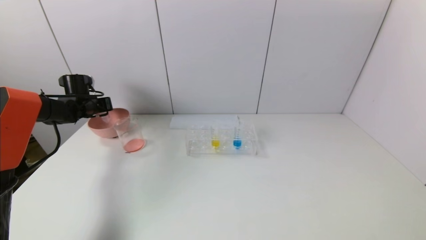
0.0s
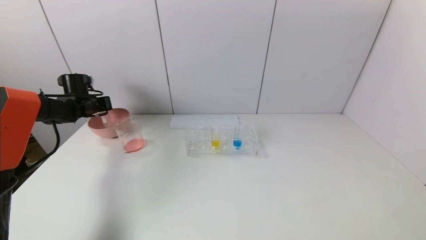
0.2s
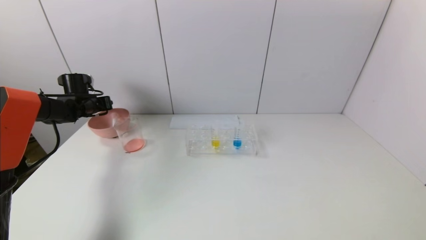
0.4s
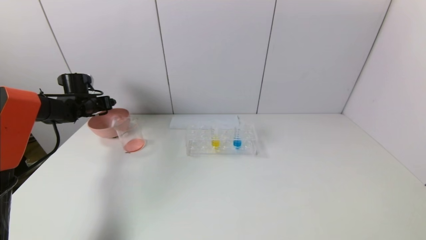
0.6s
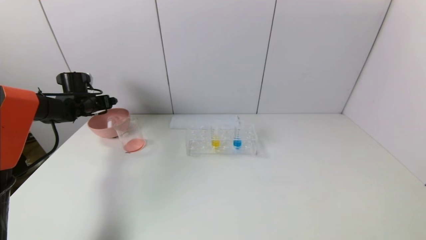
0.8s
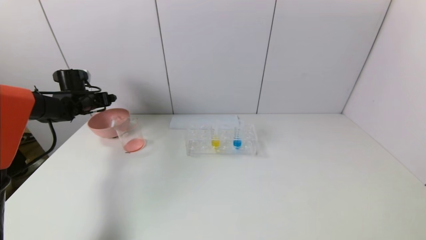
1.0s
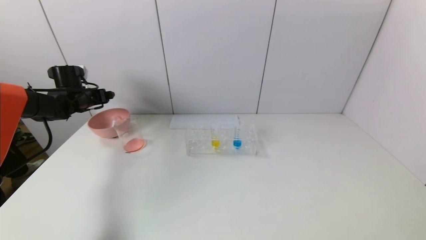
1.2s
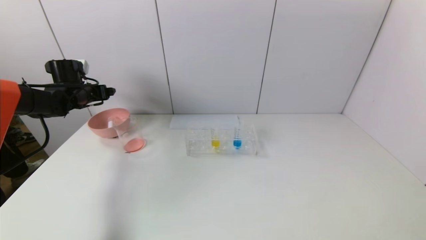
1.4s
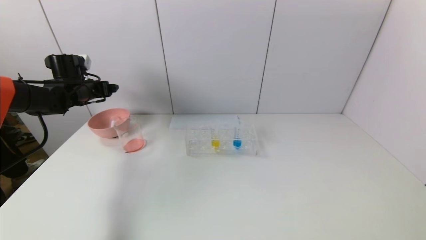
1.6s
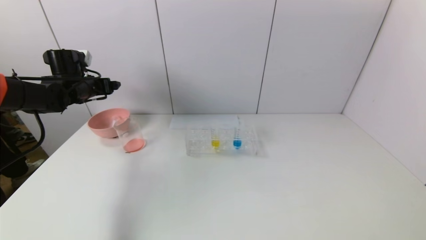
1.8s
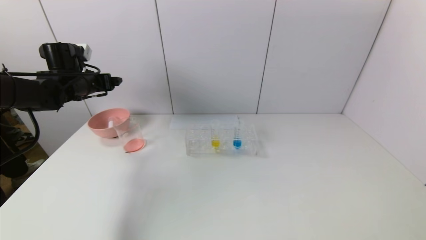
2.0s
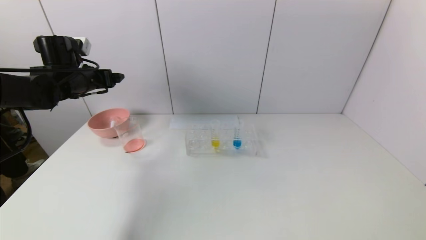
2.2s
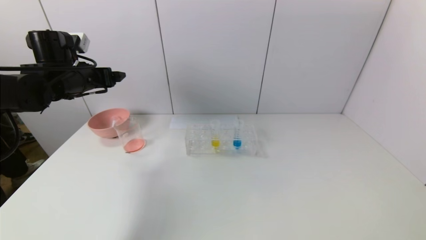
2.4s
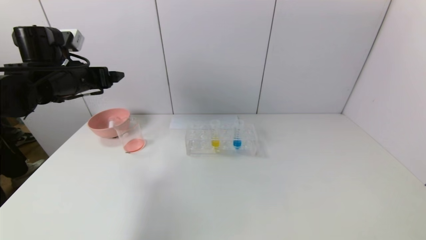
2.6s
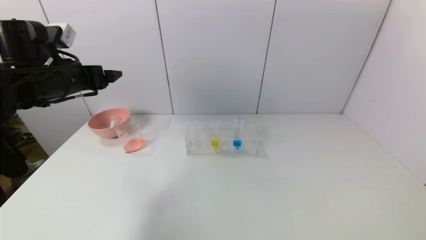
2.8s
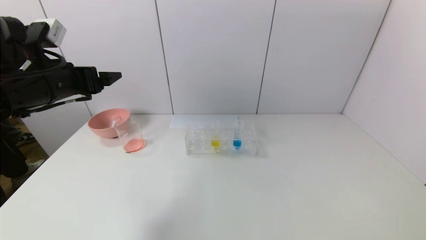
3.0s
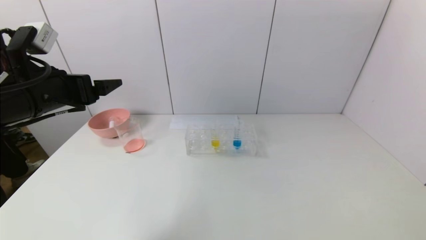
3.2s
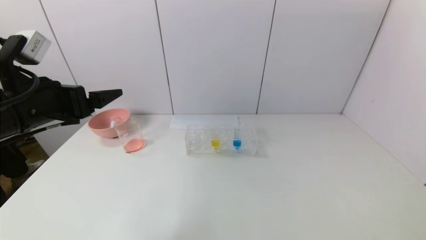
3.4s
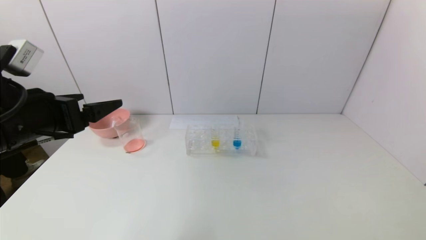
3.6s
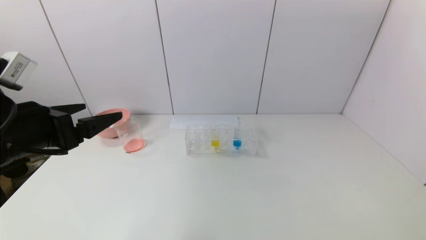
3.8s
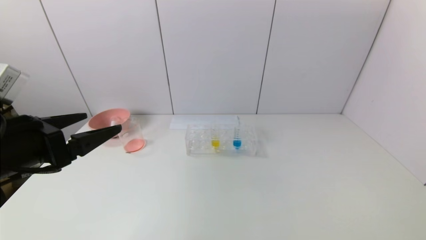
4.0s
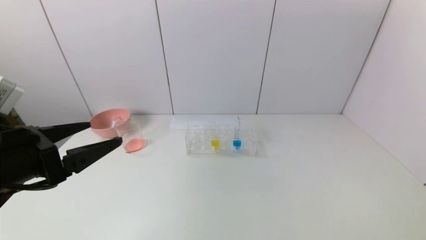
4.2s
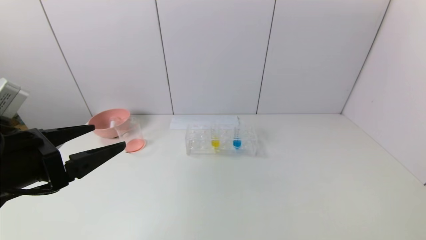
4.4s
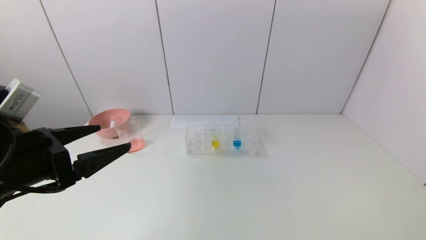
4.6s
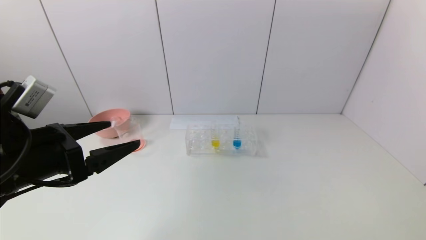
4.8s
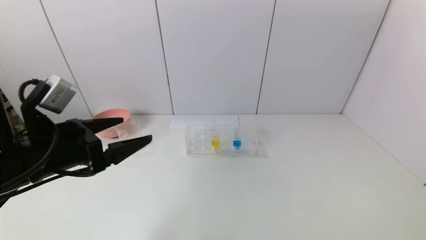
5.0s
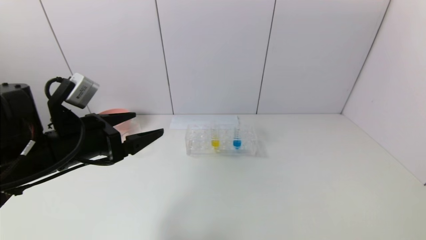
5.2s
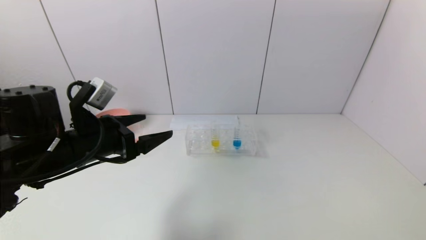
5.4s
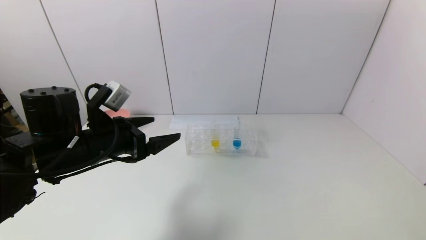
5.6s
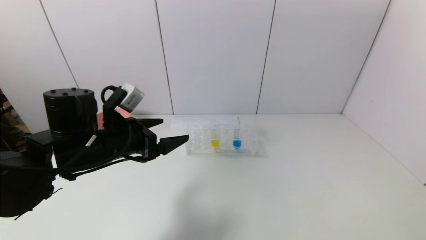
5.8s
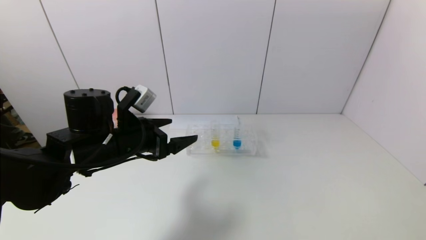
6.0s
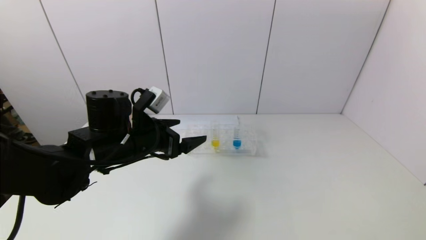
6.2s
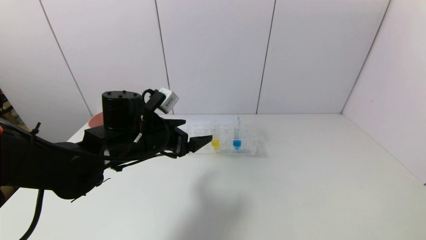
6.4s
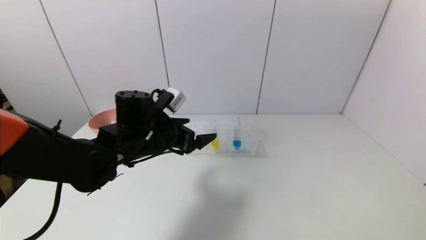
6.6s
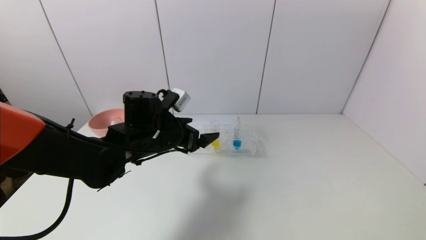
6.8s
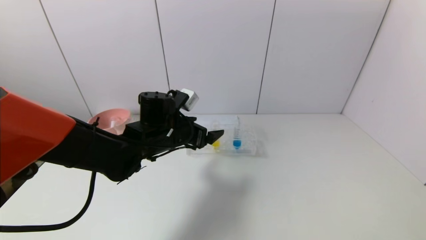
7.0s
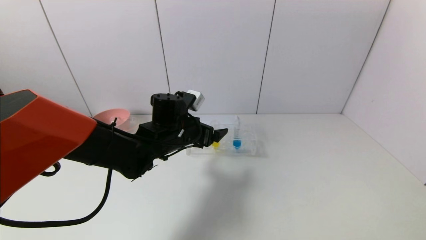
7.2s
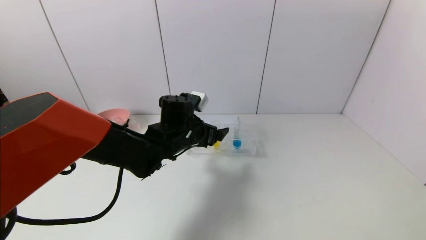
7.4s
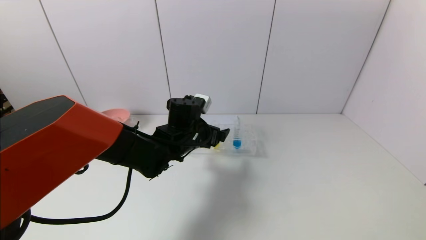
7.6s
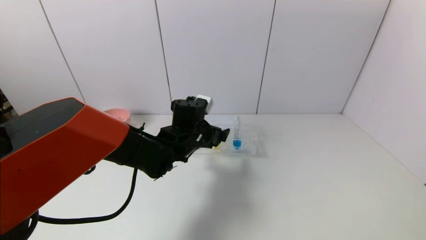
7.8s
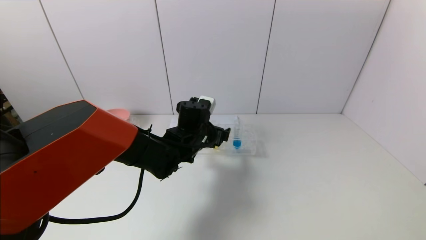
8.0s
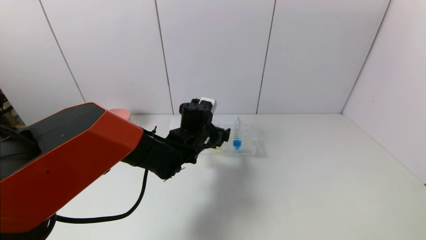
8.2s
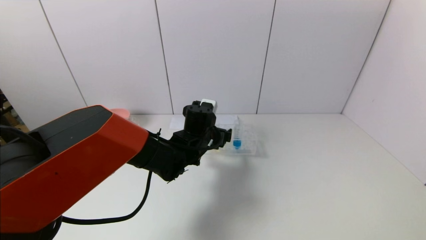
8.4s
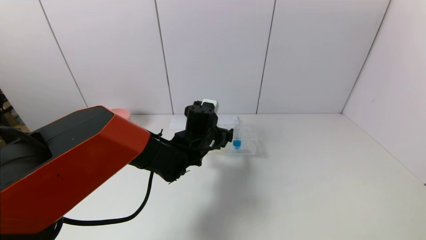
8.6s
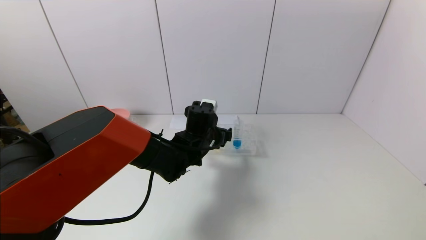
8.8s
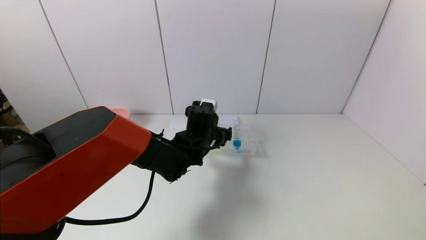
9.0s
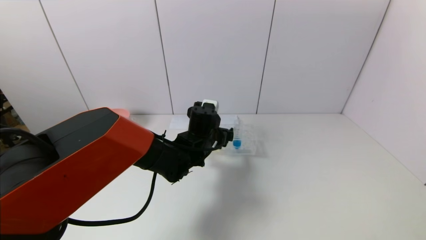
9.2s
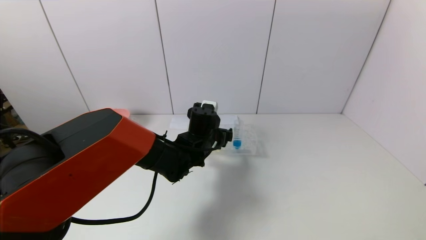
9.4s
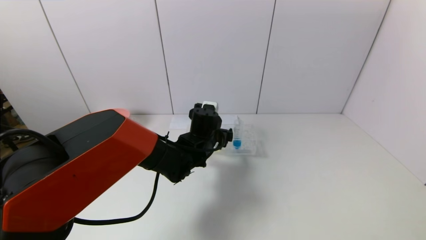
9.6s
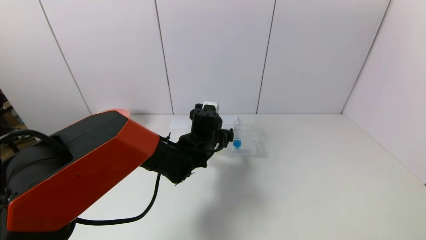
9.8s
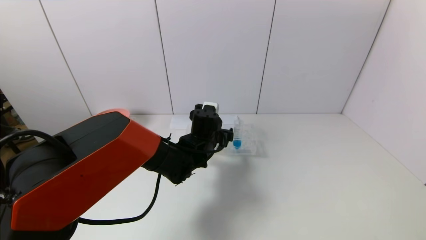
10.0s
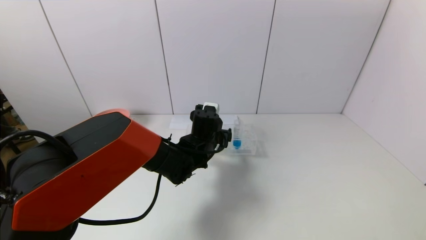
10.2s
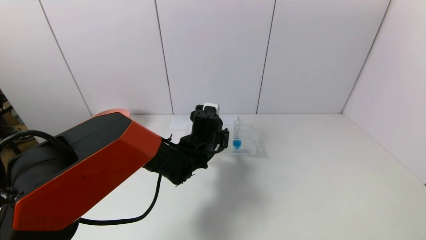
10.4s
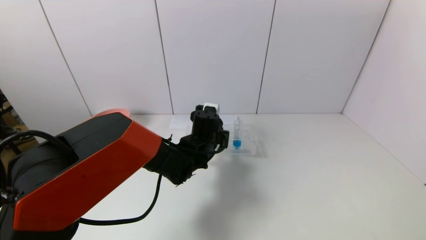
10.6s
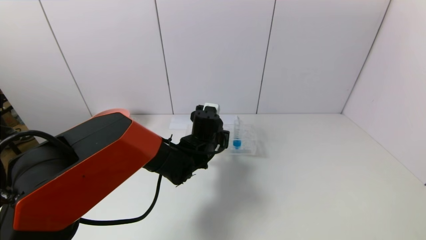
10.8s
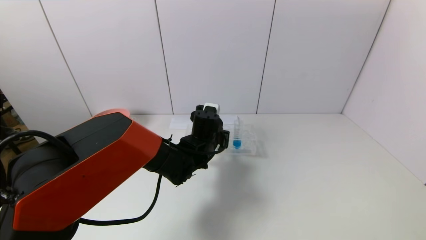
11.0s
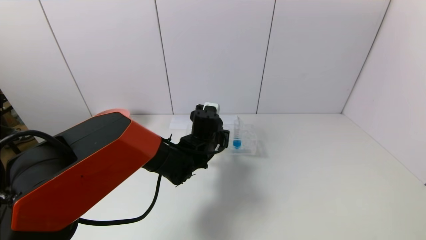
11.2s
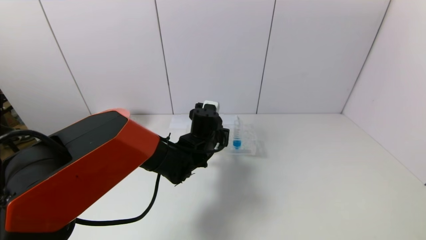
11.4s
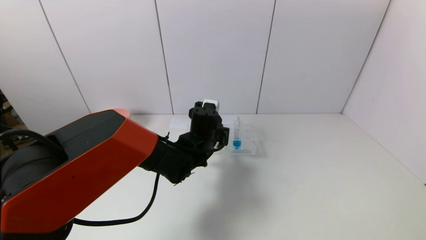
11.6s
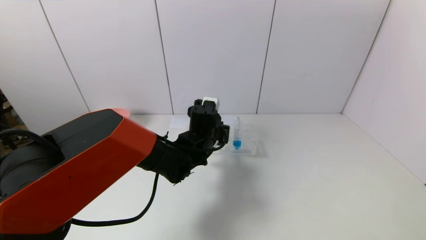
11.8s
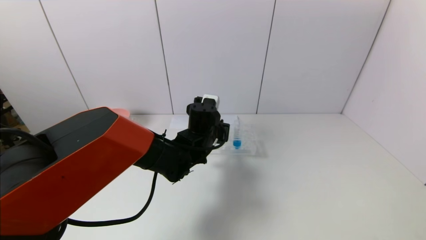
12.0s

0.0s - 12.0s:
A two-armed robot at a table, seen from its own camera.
Task of the whole recording: pick up the test tube with yellow pigment and the test tube with red pigment by grippers and pour them into the beaker.
Step, 1.0s - 11.0s: Grasp the yellow reagent with the left gripper.
0.0s - 1.6s: The left gripper shifts some 5 cm upward, and opens its fingers.
1.6s - 3.0s: The left gripper travels backward, to the right and upward by roughly 20 cm.
3.0s - 4.4s: The left gripper is displaced backward and downward by about 15 cm.
4.4s - 6.0s: The left gripper travels forward and to the right by approximately 15 cm.
6.0s - 7.6s: The left gripper travels to the right, forward and downward by some 15 cm.
7.6s - 9.0s: There are only small adjustments of the grippers.
9.0s - 10.4s: The left gripper closes up.
10.4s - 12.0s: The left gripper closes up.

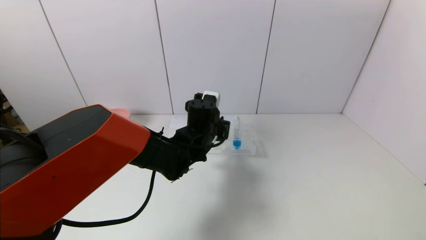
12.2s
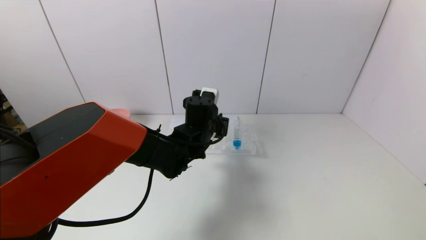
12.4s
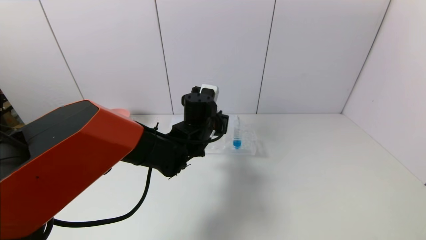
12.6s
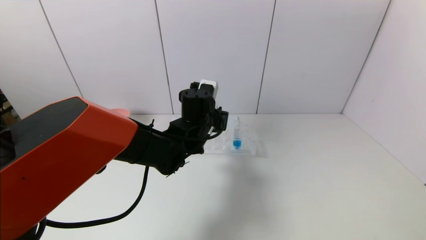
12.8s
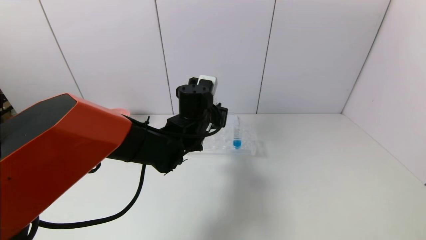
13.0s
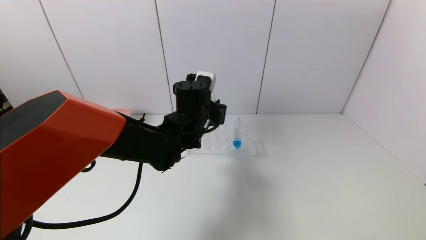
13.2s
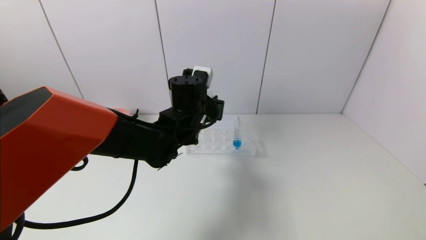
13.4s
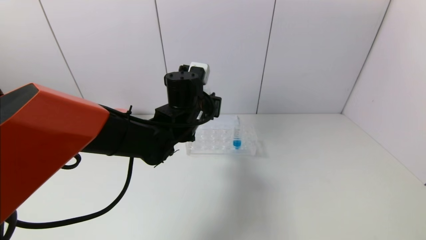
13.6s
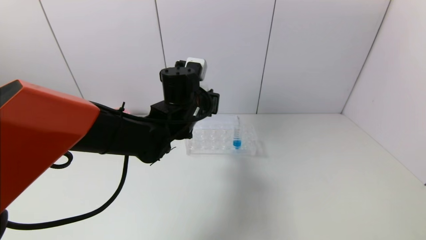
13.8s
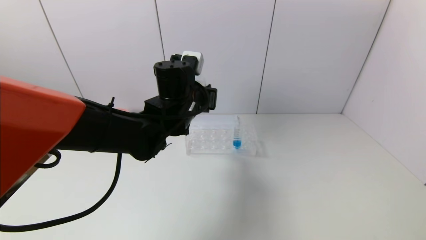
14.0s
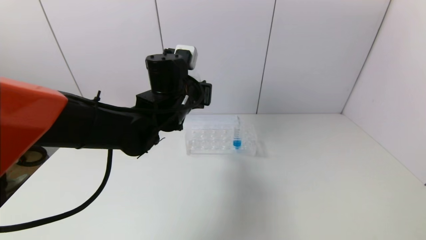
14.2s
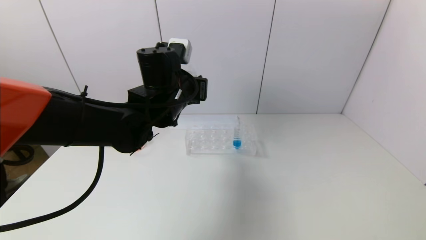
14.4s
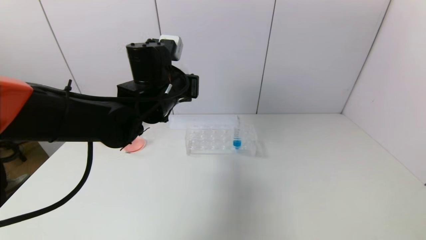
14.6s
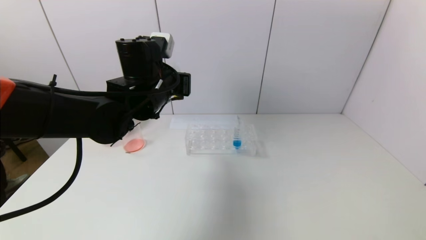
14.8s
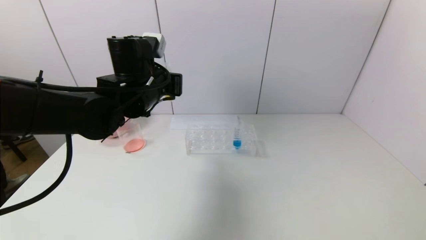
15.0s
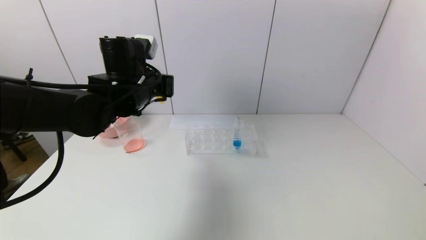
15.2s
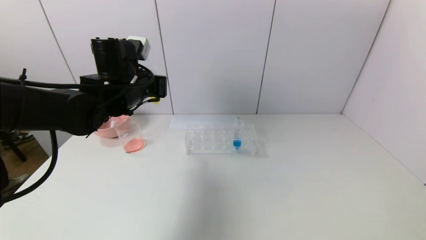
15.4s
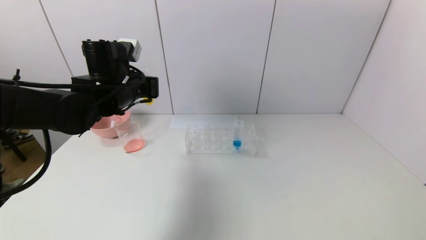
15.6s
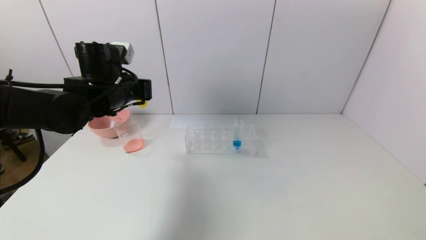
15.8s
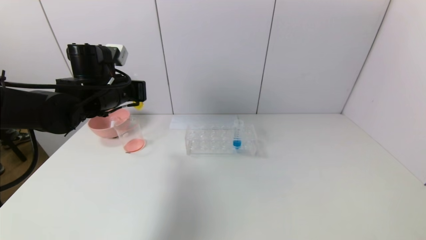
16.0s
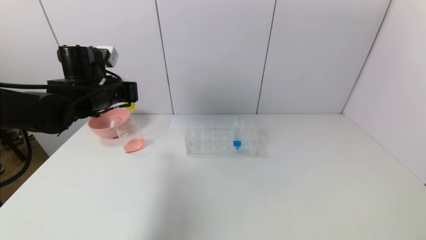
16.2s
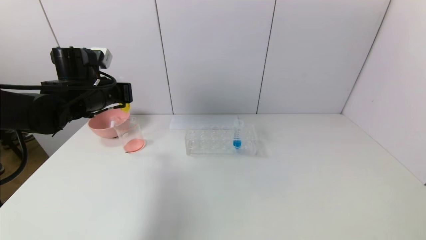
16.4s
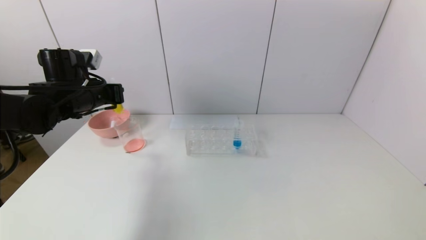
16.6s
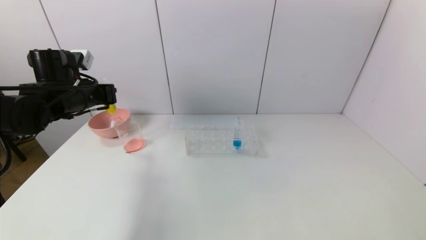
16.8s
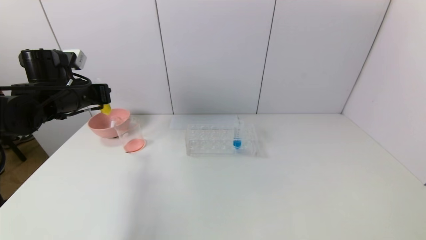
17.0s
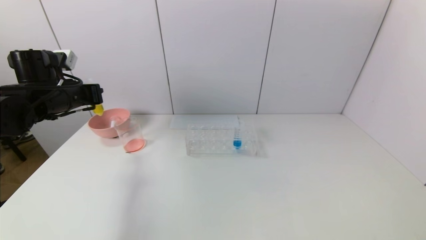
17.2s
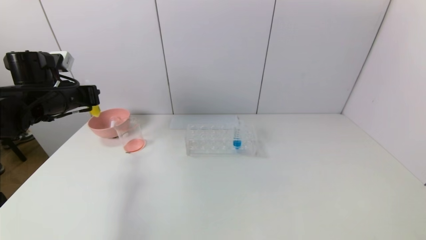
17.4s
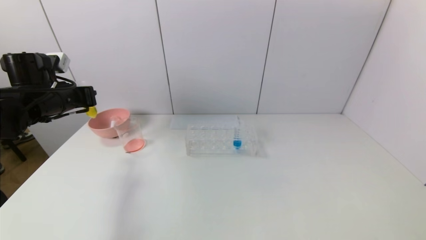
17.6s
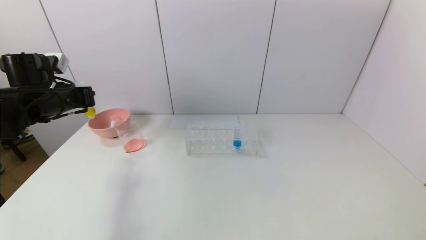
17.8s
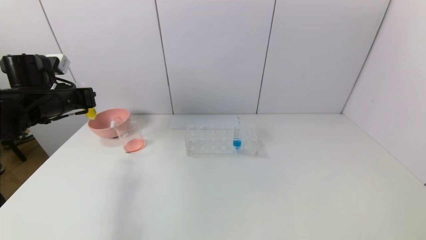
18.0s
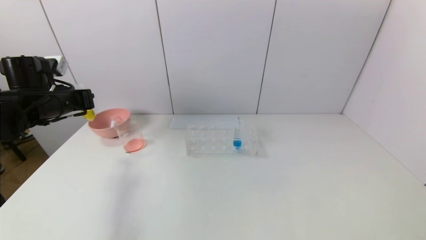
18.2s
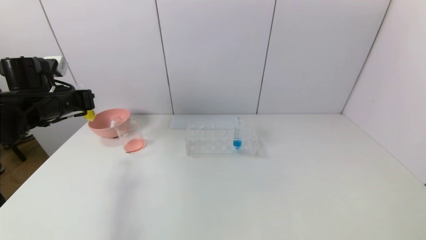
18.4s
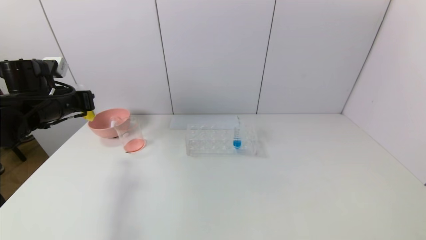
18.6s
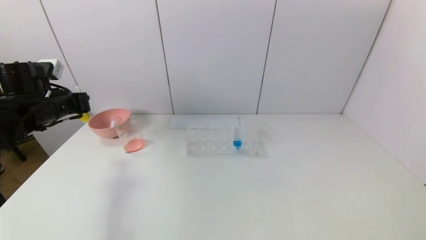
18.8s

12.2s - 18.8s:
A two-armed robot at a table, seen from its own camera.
Task of the whole recording: pick up the test tube with yellow pigment and the test tube with red pigment by grippers and pour them into the beaker.
12.2s - 13.8s: The left gripper is displaced upward by approximately 10 cm.
13.8s - 15.4s: The left gripper heads to the left, covering about 10 cm.
15.4s - 17.2s: The left gripper is displaced to the left by roughly 15 cm.
17.2s - 18.8s: The grippers move only a little.
